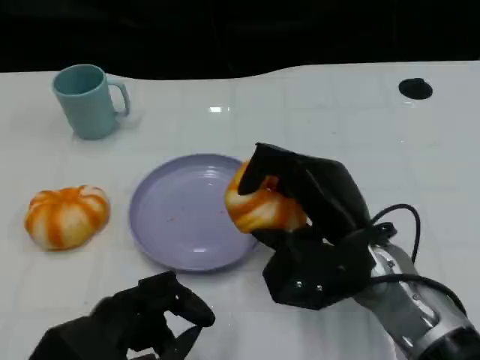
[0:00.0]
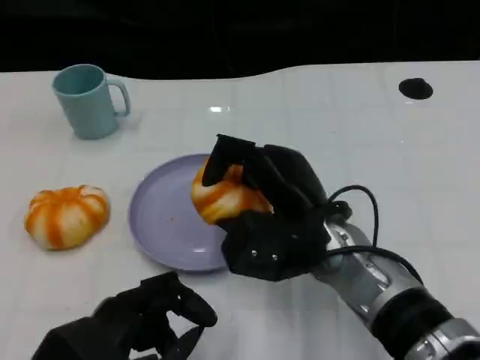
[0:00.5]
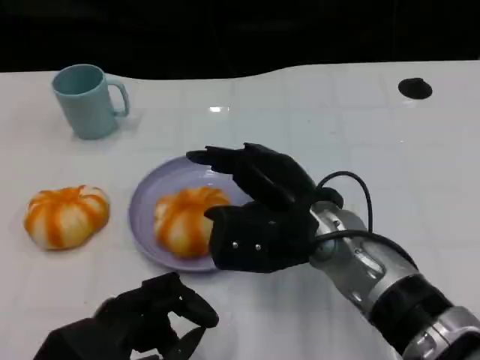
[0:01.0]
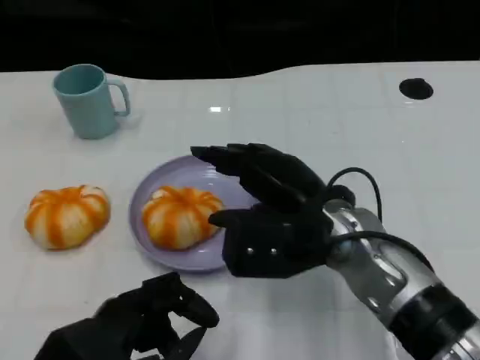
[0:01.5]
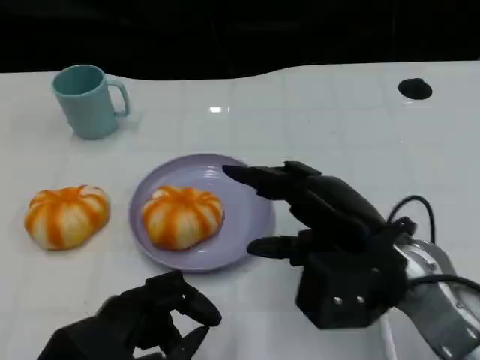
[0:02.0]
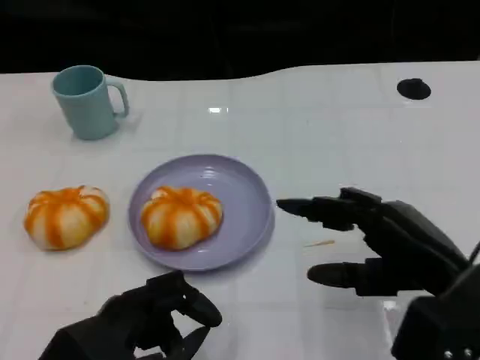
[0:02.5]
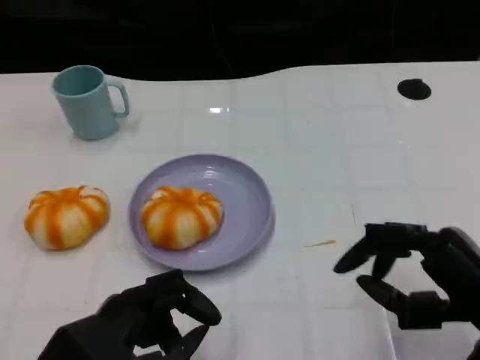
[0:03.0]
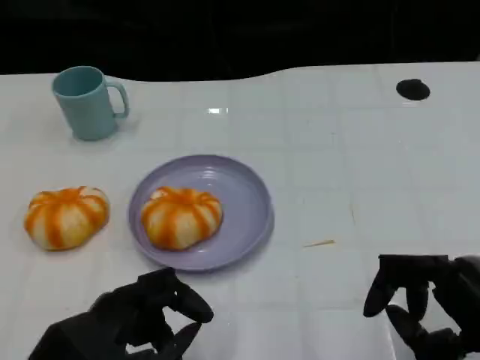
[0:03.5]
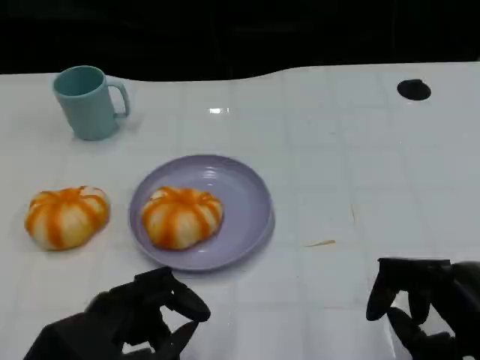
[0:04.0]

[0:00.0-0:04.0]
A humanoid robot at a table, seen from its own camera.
Task of the whole recording: Grasp the bread from the table and place it into the plate.
0:02.0 to 0:04.0: The right hand goes approximately 15 cm backward and to the right.

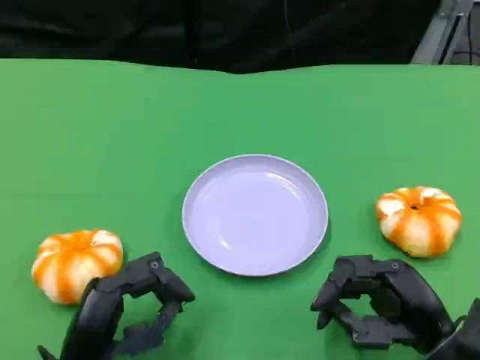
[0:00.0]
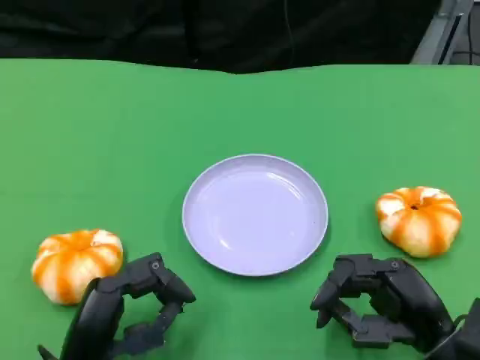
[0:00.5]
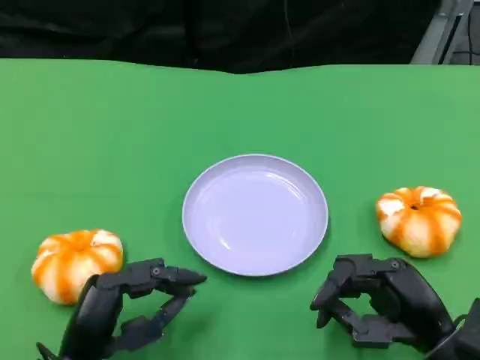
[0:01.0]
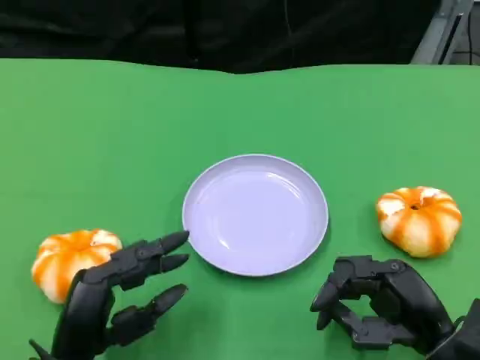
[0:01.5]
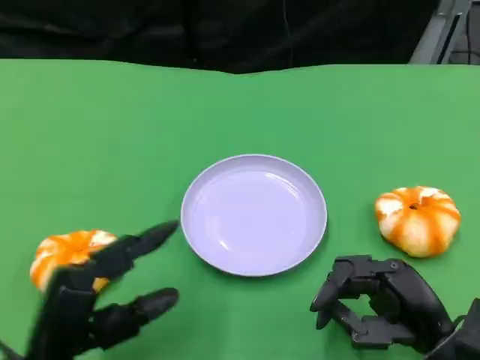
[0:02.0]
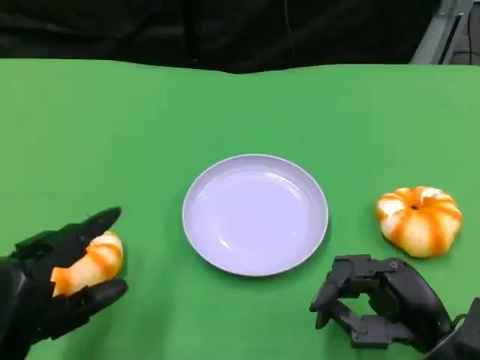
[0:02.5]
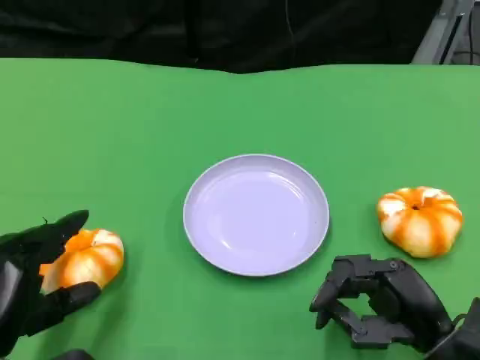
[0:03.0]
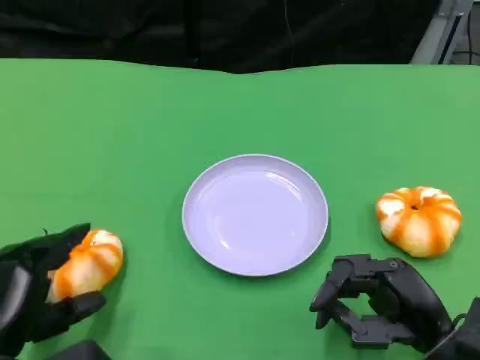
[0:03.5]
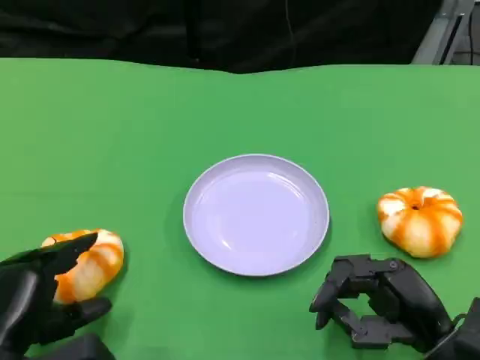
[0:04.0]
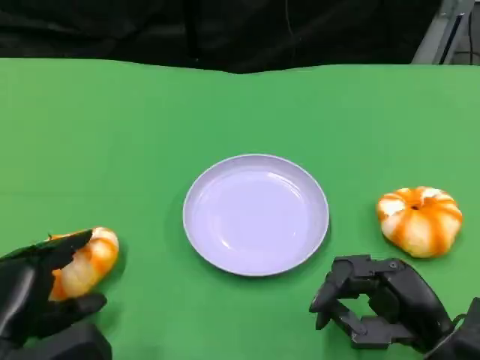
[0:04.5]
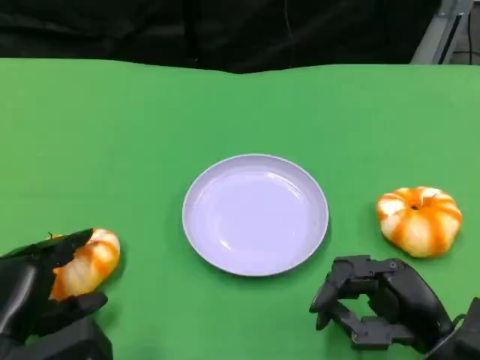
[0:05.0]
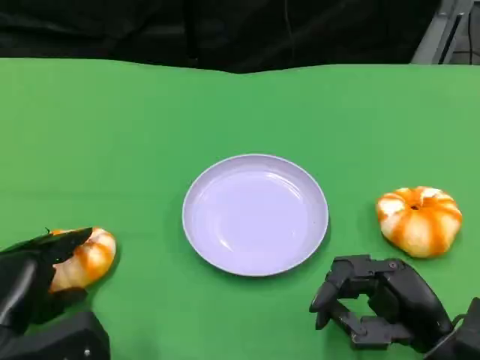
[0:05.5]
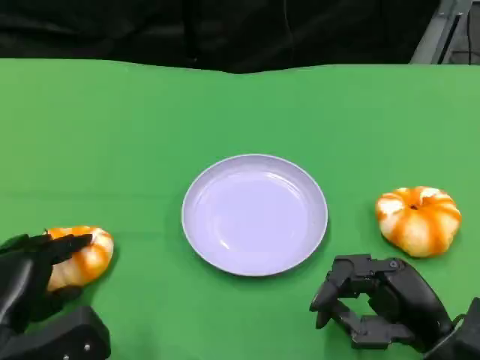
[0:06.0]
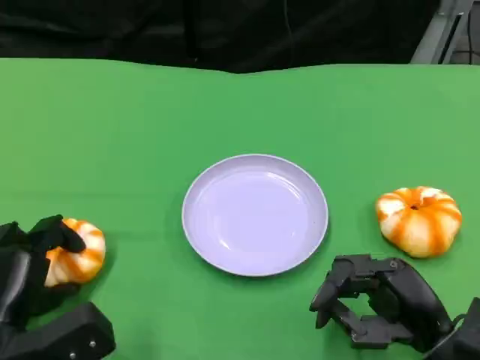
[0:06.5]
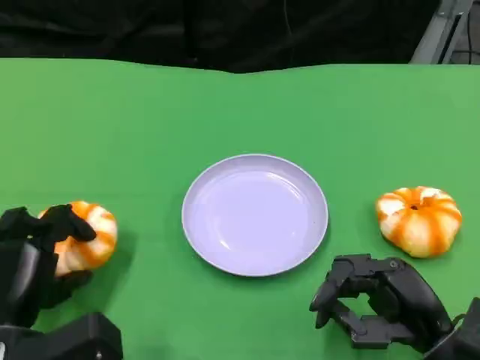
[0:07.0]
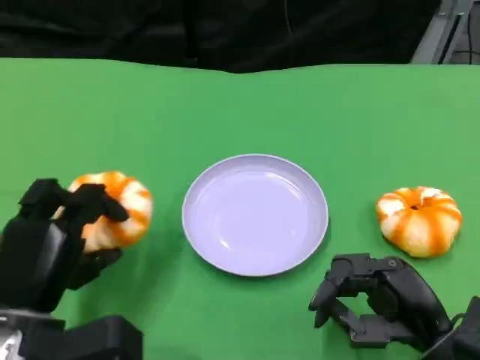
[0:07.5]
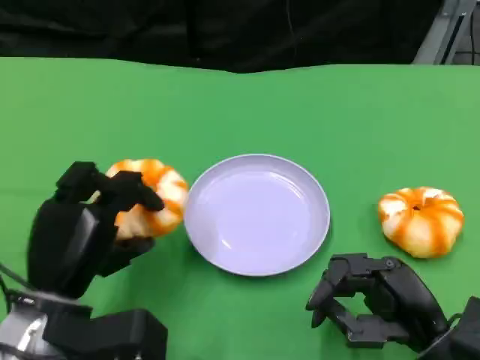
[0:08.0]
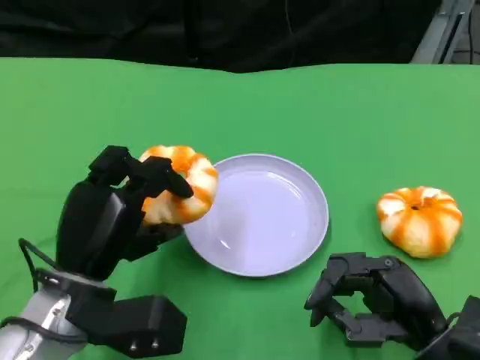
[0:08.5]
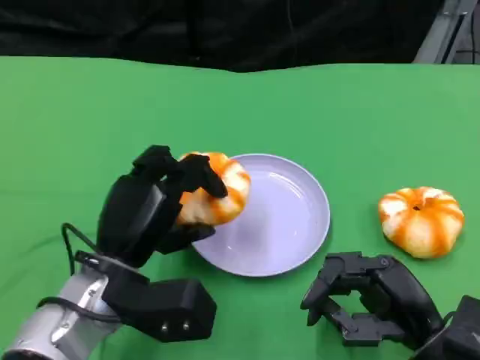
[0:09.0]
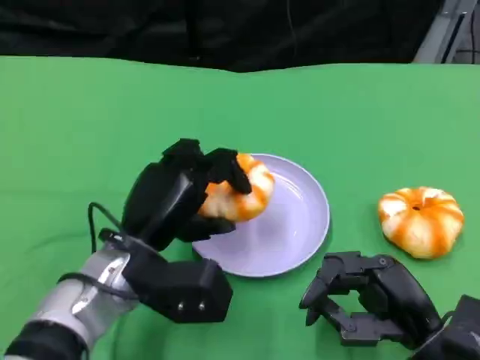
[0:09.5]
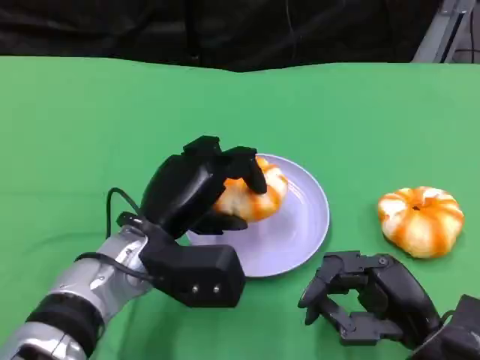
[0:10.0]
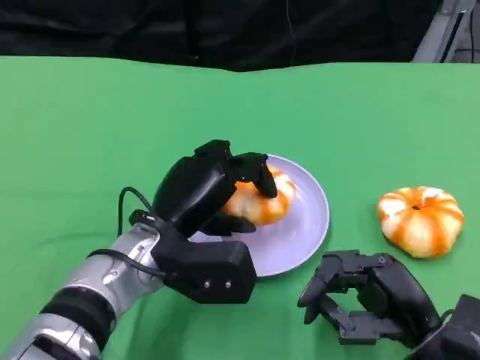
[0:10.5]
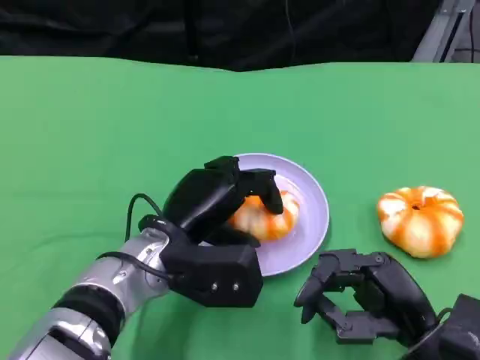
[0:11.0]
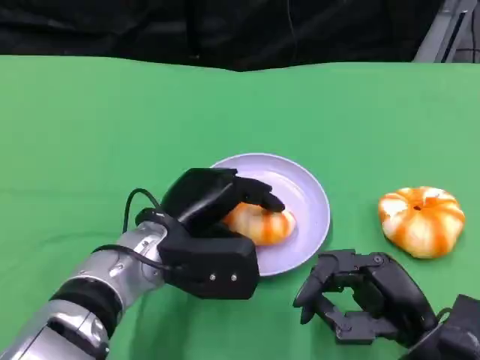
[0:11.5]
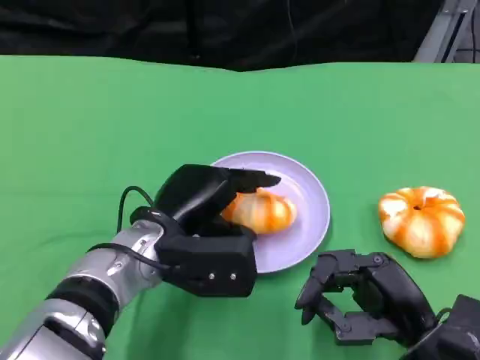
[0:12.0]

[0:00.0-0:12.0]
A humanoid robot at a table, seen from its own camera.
Task of the whole recording: Grasp the bread from the table and place it into the plate.
0:04.0 to 0:06.0: The hands stay close to where they were, moving slightly.
0:06.0 to 0:08.0: The left hand is displaced to the right and upward by about 10 cm.
0:08.0 to 0:10.0: The left hand heads to the right and forward, covering approximately 10 cm.
0:10.0 to 0:12.0: There are only small adjustments of the hands.

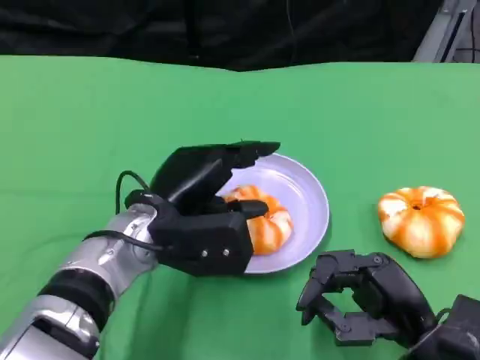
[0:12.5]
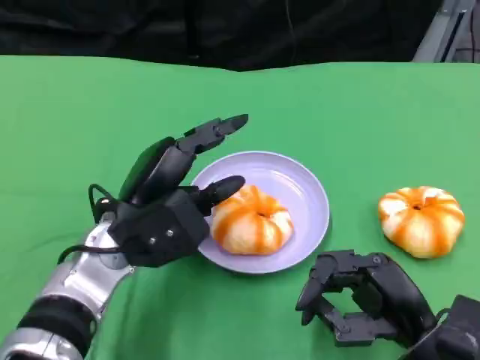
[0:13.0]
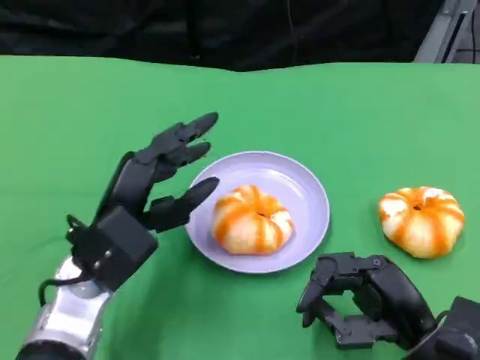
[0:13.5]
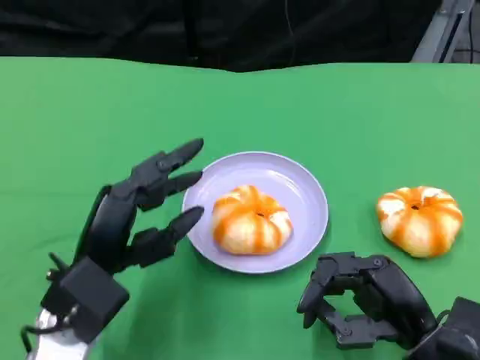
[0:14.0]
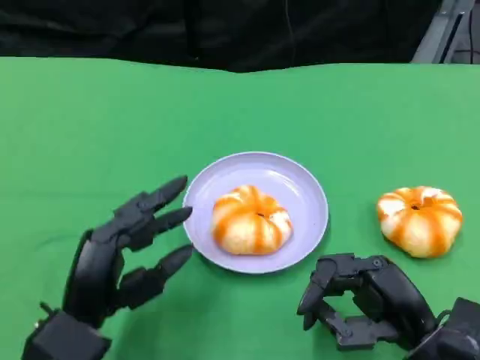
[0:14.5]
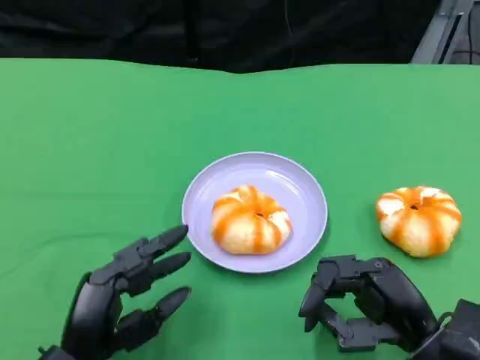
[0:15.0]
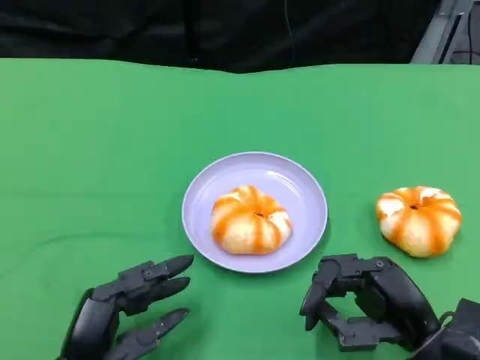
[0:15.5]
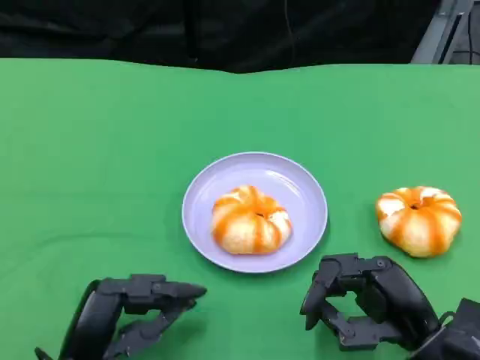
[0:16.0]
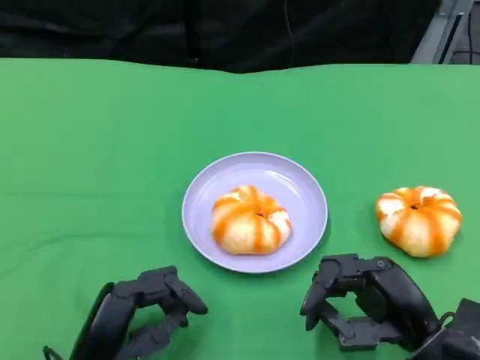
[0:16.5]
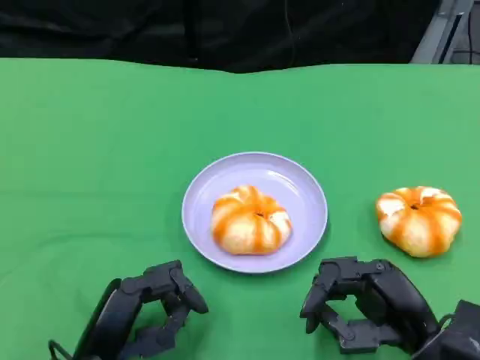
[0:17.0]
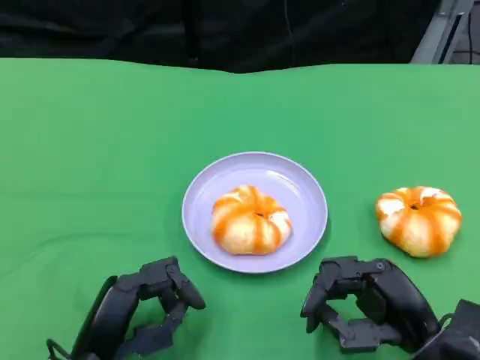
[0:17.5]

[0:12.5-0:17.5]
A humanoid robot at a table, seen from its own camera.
Task of the whole recording: Grasp the bread from the table and place it into the plate.
0:12.5 to 0:15.0: The left hand heads backward, to the left and downward, covering some 15 cm.
0:15.0 to 0:17.5: The hands stay close to where they were, moving slightly.

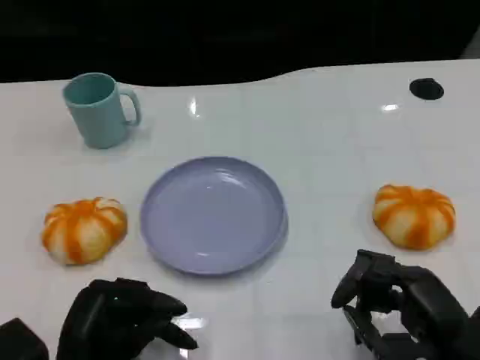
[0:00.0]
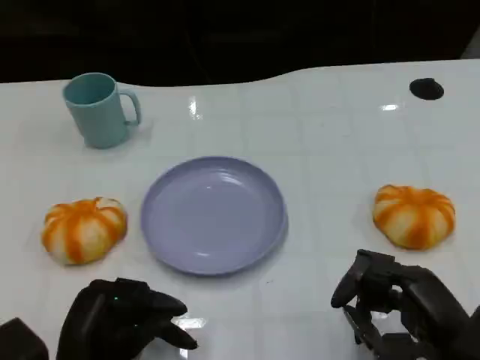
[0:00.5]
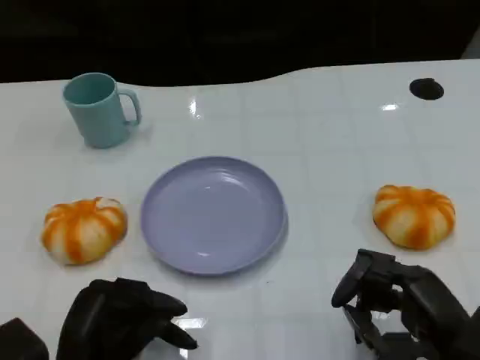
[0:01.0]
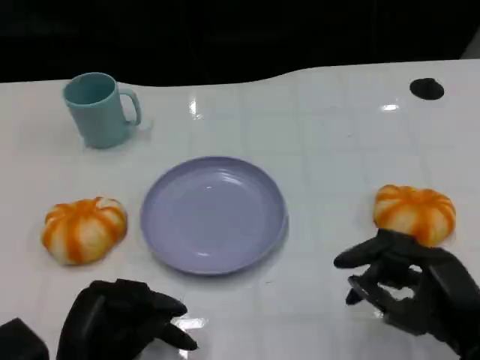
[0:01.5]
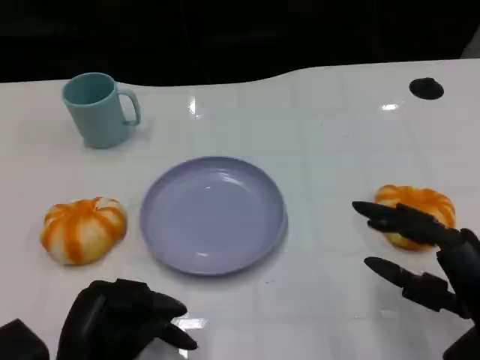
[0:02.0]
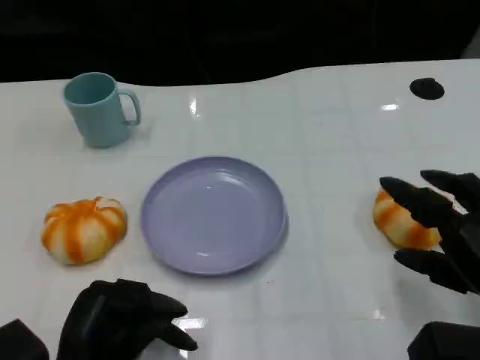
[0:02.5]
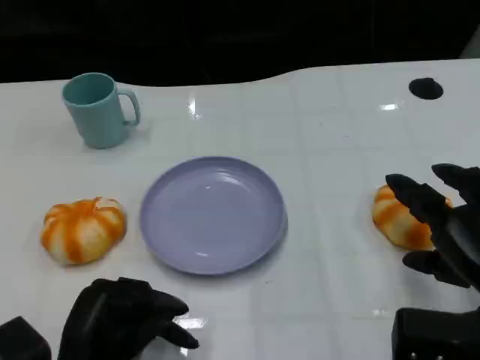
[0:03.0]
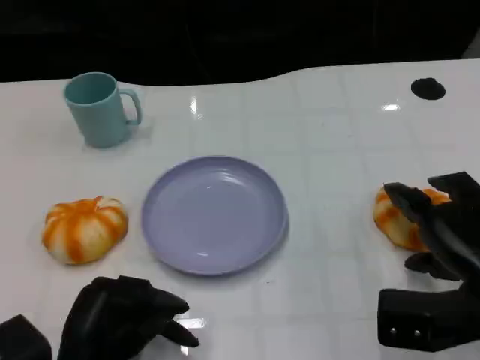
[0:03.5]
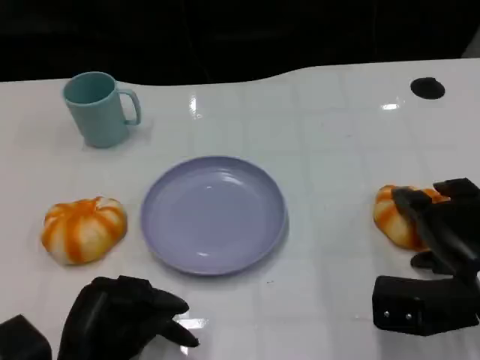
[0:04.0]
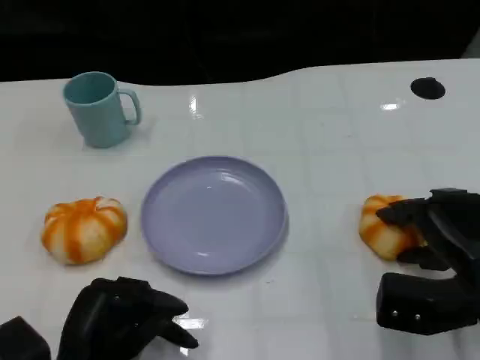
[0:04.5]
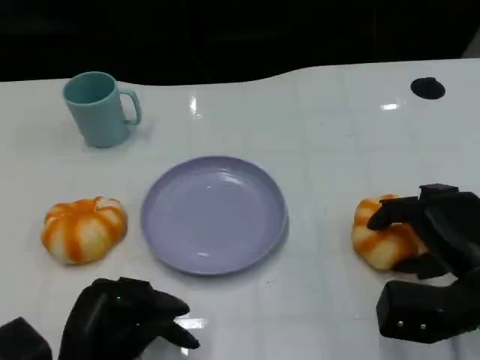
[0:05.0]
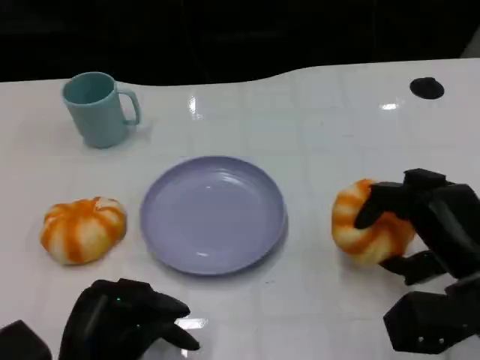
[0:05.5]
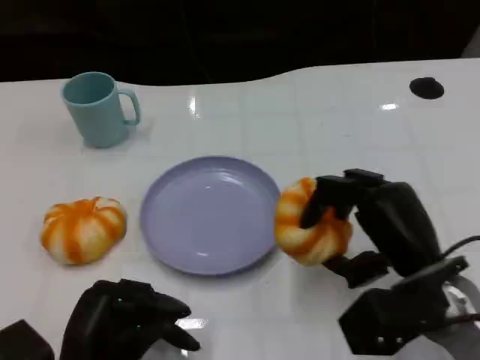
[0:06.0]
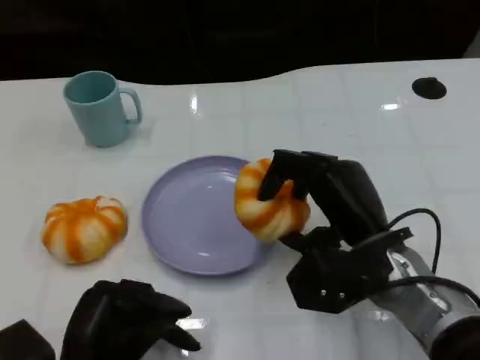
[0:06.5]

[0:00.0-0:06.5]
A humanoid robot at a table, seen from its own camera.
Task of the whole recording: Grasp the bread from the table and place it into the plate.
0:02.0 to 0:04.5: The right hand is displaced forward by roughly 5 cm.
0:04.5 to 0:06.5: The right hand moves to the left, roughly 10 cm.
